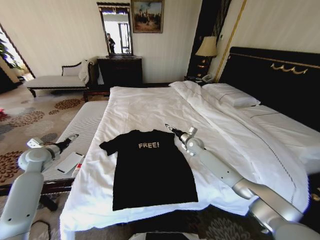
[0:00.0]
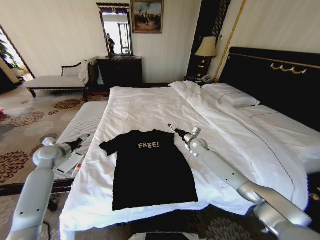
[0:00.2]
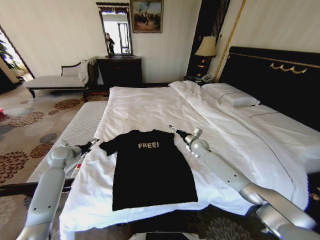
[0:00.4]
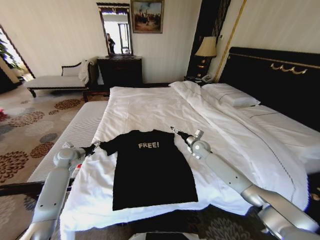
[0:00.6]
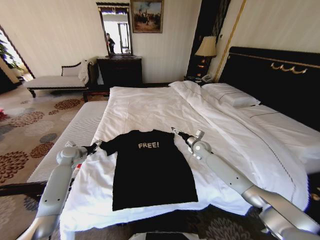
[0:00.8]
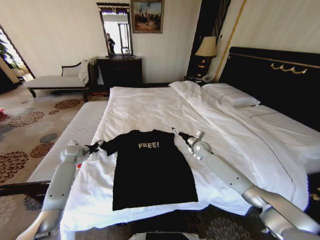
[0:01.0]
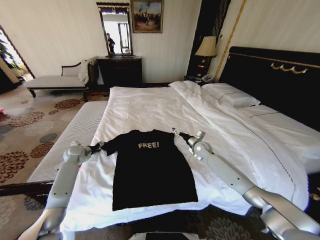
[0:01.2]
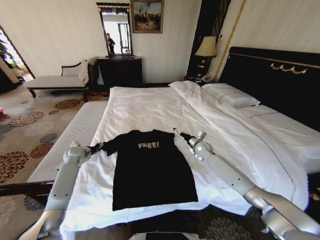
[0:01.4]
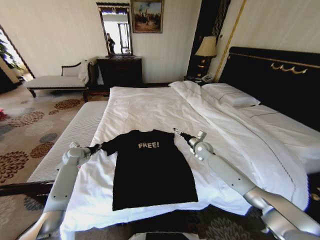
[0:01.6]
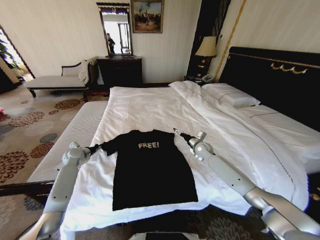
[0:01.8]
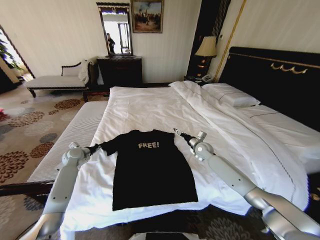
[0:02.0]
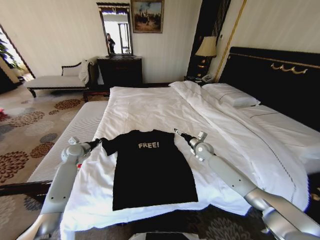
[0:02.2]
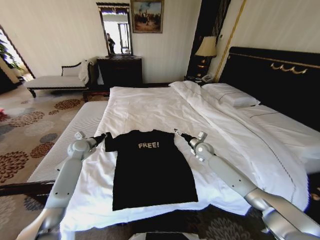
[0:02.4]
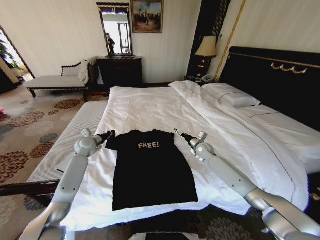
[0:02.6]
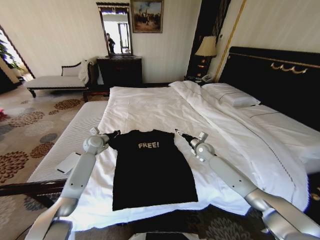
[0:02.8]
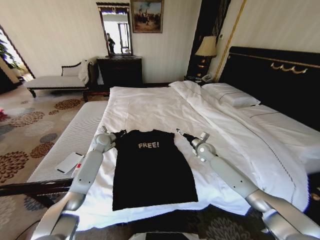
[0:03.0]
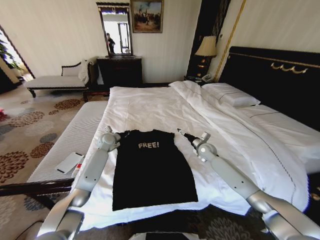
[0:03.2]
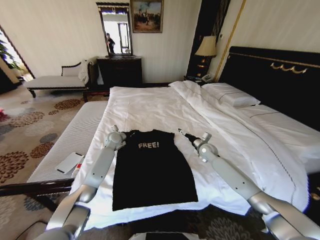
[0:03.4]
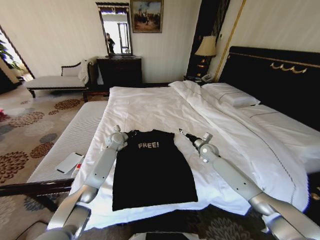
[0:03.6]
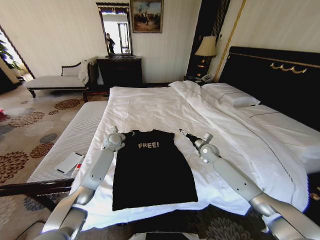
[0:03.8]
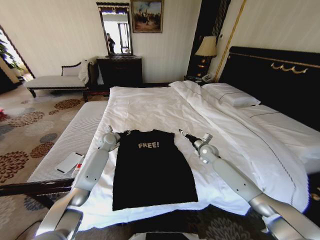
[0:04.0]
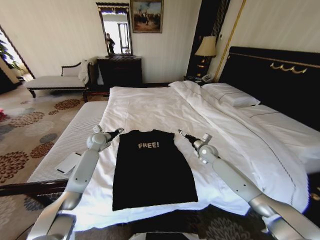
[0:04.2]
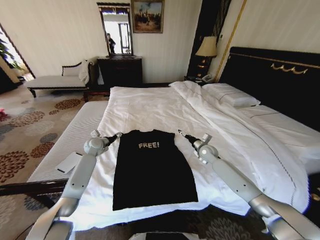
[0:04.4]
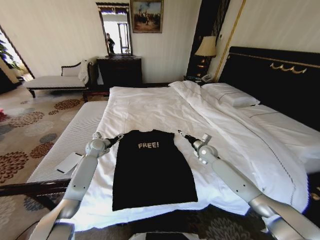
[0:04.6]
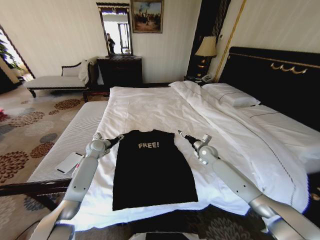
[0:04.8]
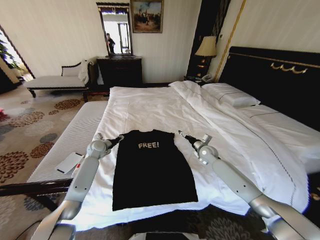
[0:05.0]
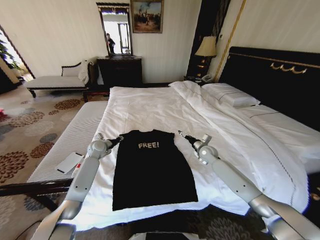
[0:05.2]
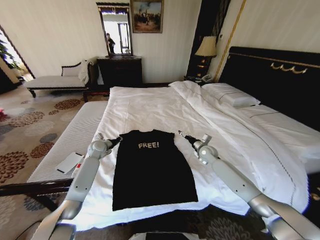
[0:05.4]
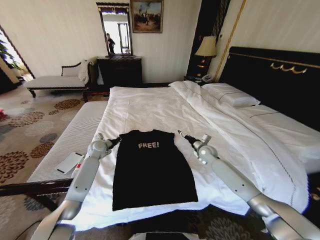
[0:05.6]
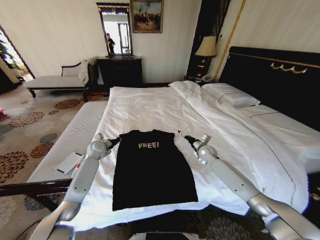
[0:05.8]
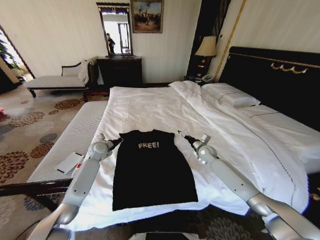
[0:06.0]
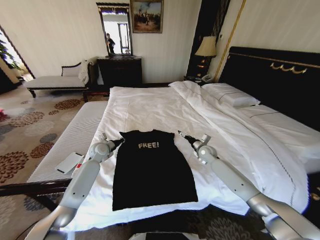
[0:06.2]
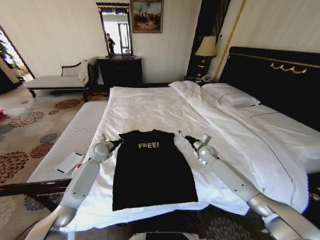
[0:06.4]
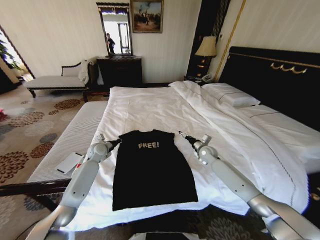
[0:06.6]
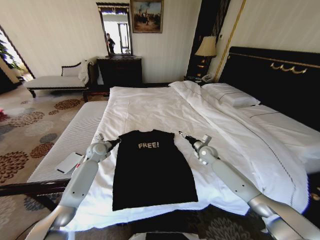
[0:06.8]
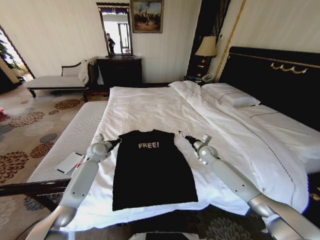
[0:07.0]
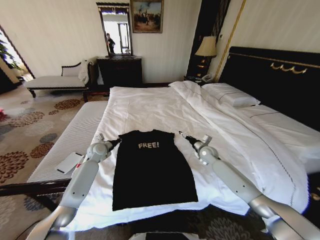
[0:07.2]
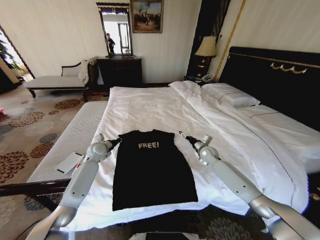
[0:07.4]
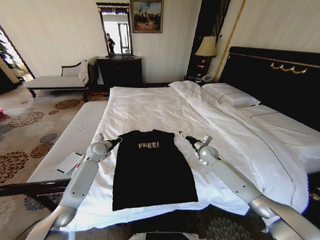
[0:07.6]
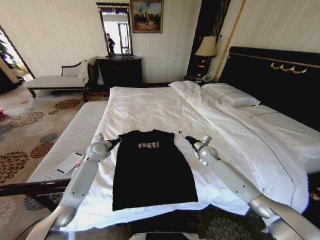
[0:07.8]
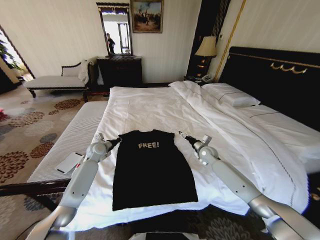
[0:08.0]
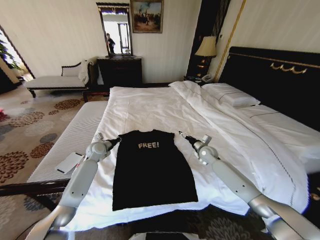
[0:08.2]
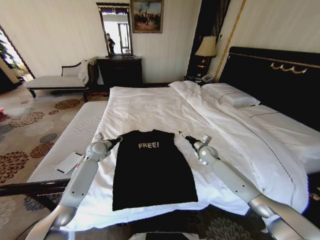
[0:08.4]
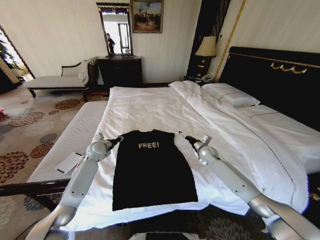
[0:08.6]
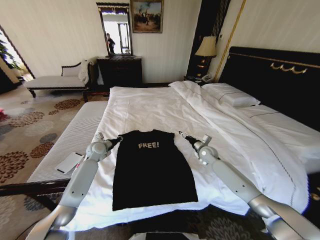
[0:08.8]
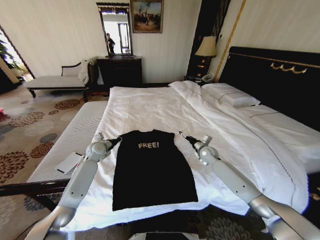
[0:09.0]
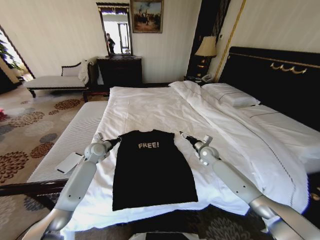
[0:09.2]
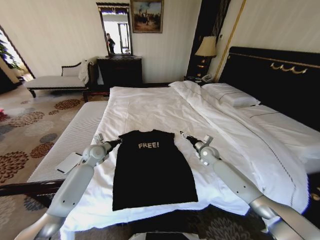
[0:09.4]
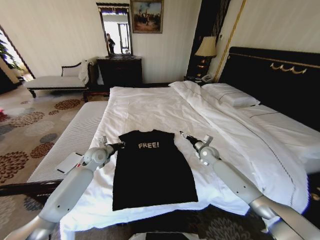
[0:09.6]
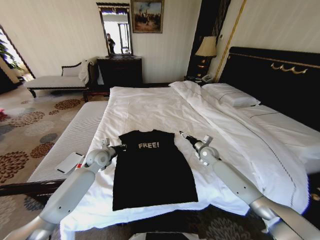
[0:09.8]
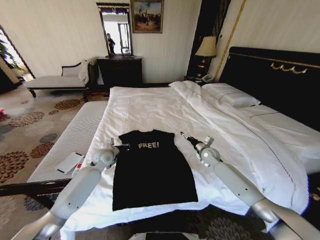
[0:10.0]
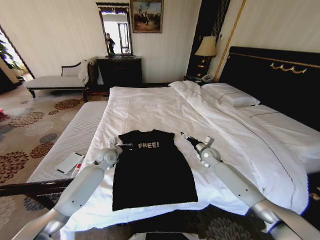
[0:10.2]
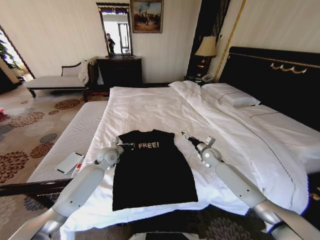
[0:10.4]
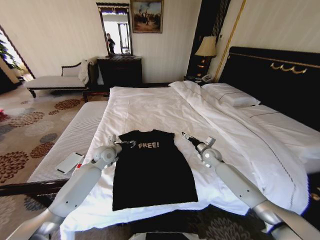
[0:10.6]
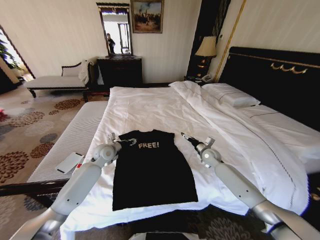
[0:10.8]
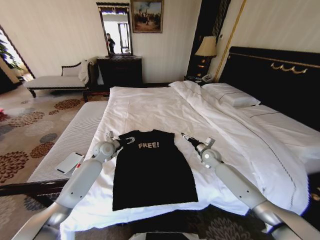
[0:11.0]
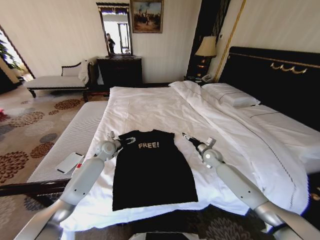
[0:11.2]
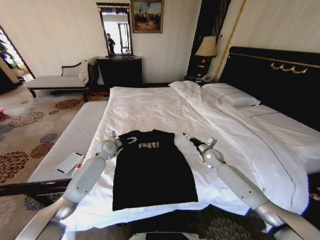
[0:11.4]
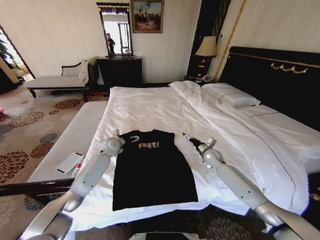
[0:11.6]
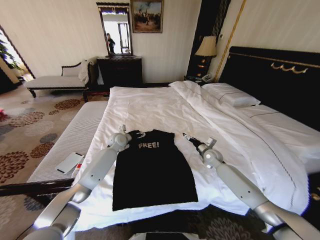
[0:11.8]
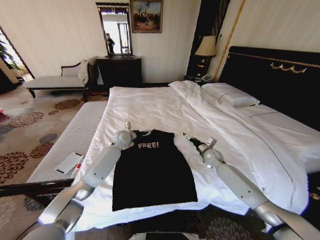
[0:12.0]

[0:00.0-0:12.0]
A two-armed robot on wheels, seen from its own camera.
Task of the whole recording: Fold the clothes on the bed.
0:00.0 to 0:01.6: The right gripper moves about 5 cm. Meanwhile the left gripper heads downward, forward and to the right, covering roughly 15 cm, and closes.
0:01.6 to 0:03.0: The left gripper is displaced to the right and forward by about 15 cm.
0:03.0 to 0:04.4: The left gripper opens up.
0:04.4 to 0:06.0: The left gripper closes.
0:06.0 to 0:09.0: Both grippers stay about where they are.
0:09.0 to 0:10.4: The left gripper goes roughly 5 cm to the right.
0:10.4 to 0:12.0: The left gripper travels forward and to the right by some 10 cm, and opens up.

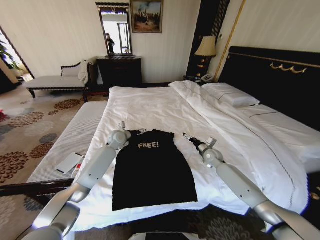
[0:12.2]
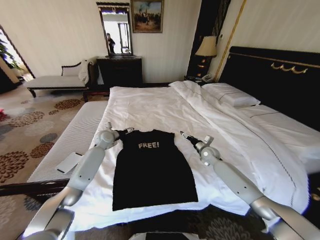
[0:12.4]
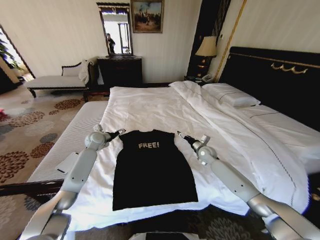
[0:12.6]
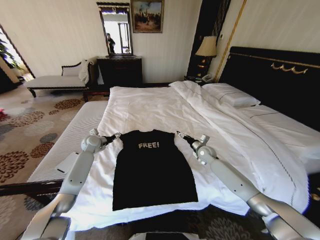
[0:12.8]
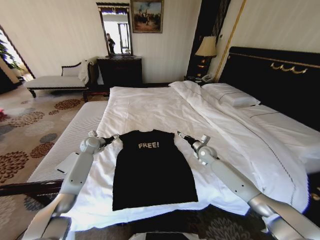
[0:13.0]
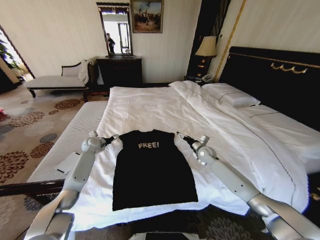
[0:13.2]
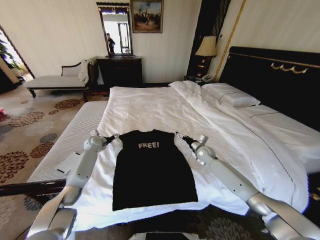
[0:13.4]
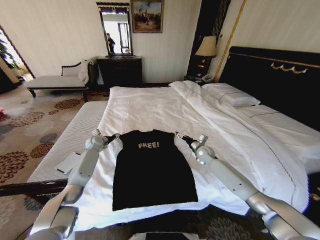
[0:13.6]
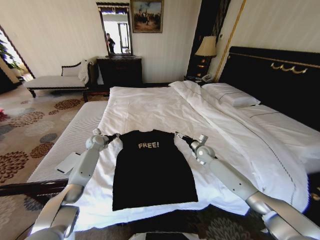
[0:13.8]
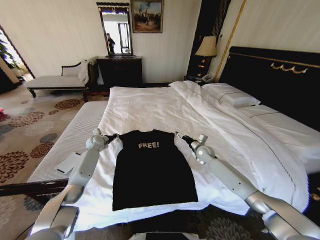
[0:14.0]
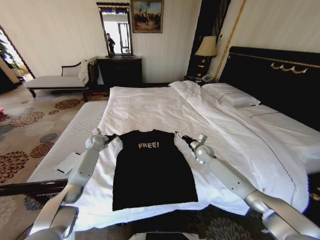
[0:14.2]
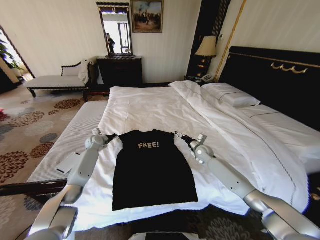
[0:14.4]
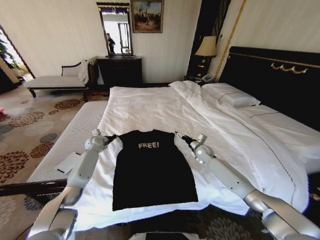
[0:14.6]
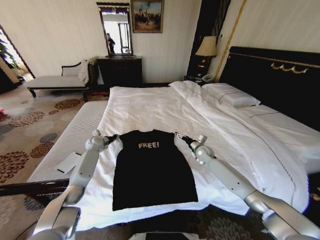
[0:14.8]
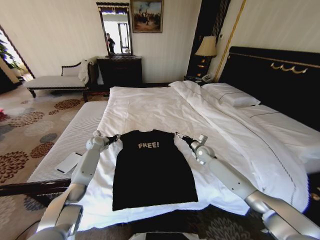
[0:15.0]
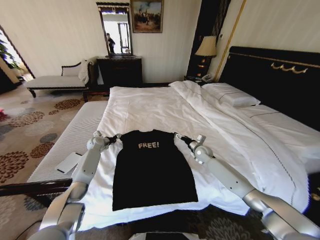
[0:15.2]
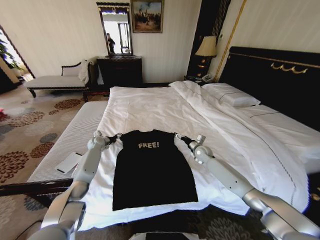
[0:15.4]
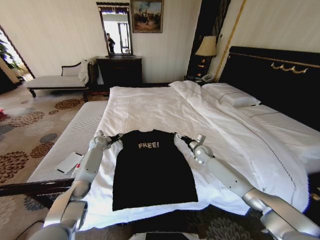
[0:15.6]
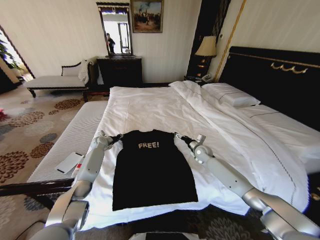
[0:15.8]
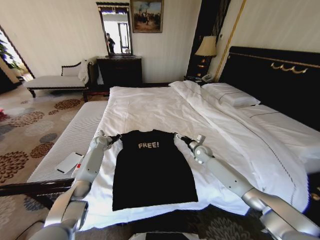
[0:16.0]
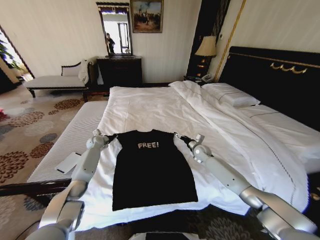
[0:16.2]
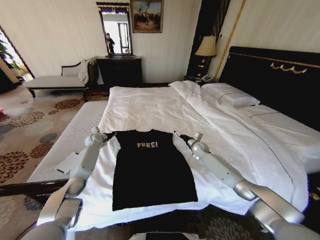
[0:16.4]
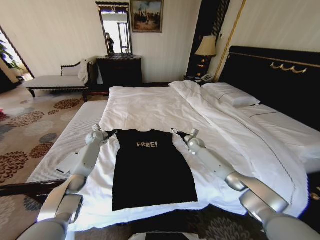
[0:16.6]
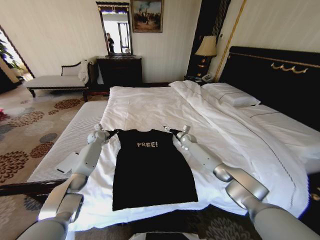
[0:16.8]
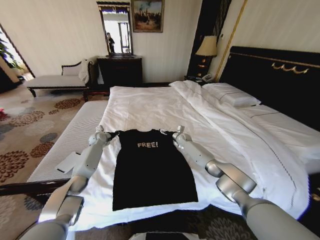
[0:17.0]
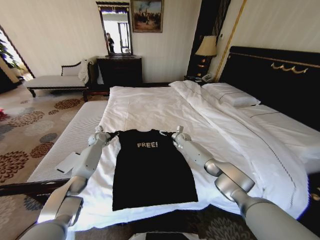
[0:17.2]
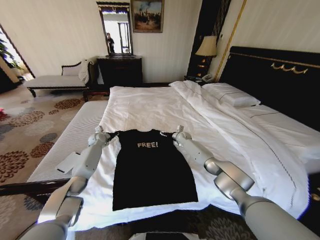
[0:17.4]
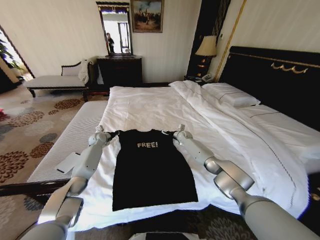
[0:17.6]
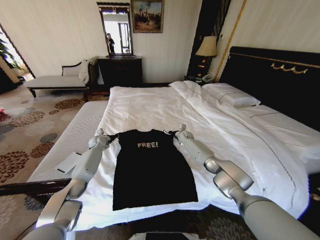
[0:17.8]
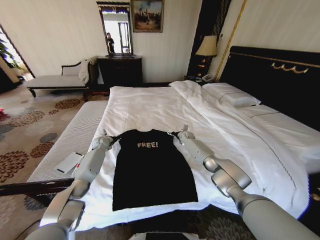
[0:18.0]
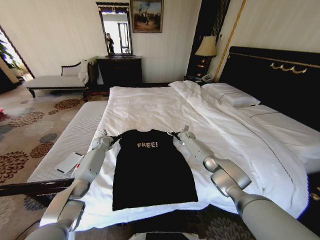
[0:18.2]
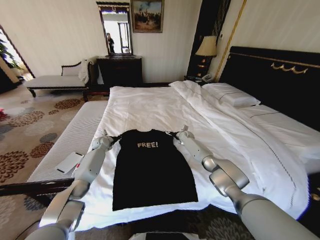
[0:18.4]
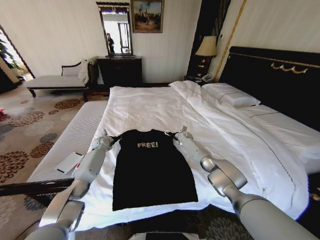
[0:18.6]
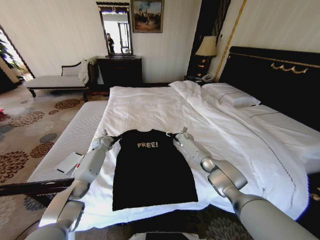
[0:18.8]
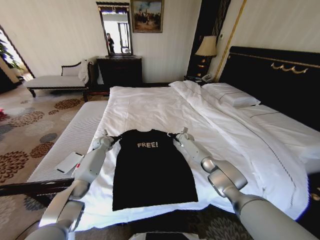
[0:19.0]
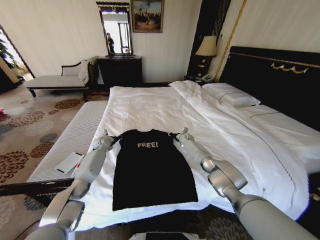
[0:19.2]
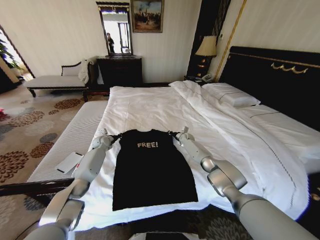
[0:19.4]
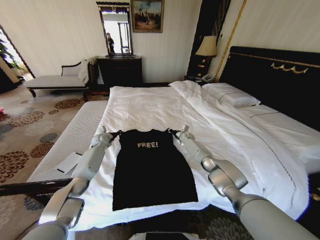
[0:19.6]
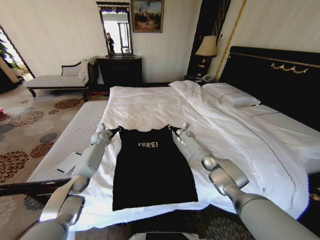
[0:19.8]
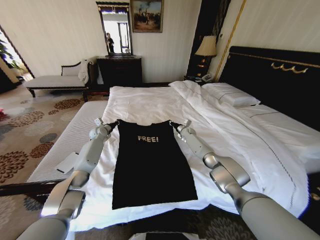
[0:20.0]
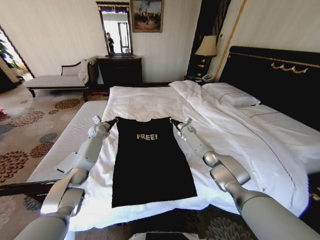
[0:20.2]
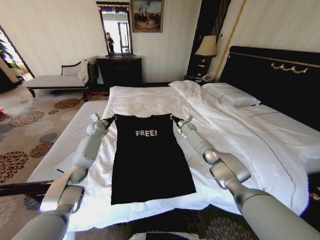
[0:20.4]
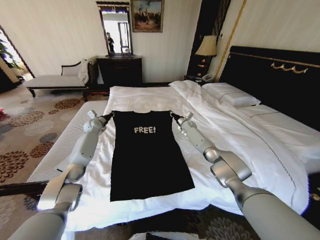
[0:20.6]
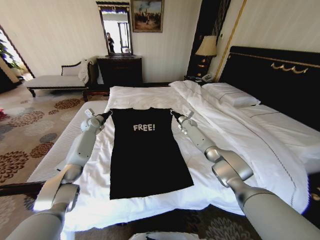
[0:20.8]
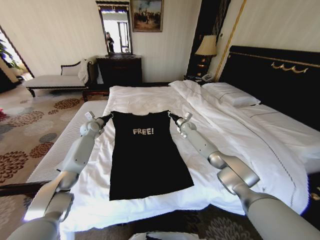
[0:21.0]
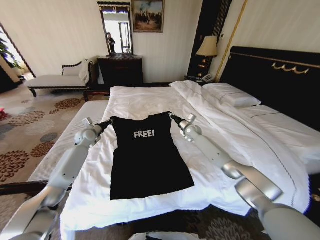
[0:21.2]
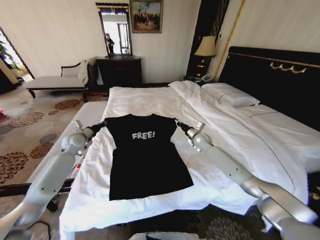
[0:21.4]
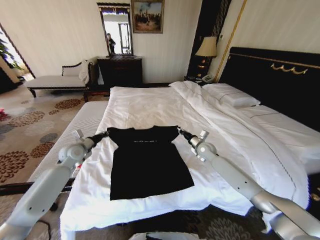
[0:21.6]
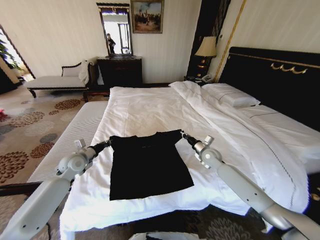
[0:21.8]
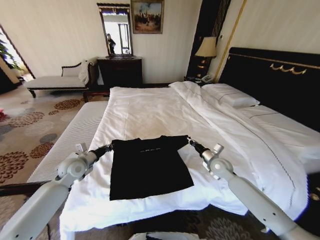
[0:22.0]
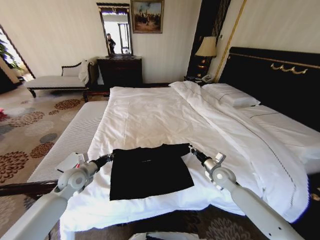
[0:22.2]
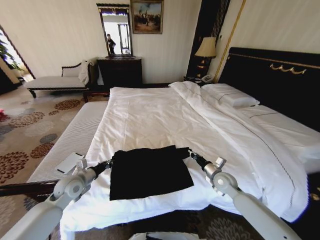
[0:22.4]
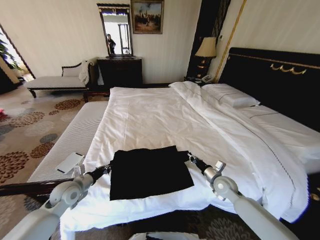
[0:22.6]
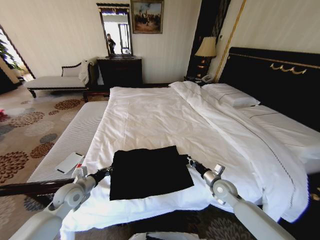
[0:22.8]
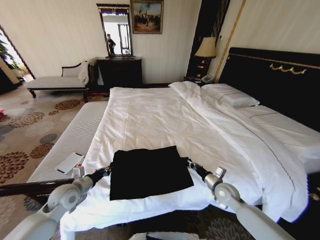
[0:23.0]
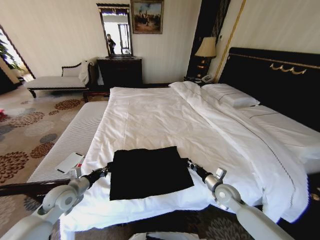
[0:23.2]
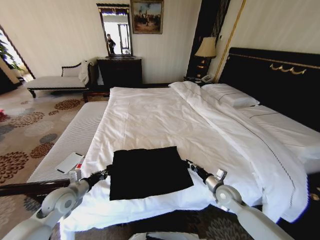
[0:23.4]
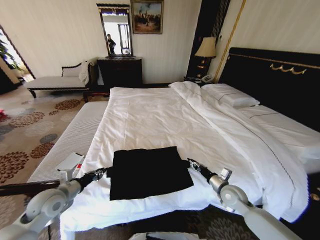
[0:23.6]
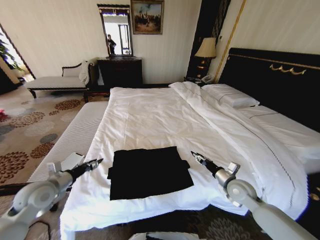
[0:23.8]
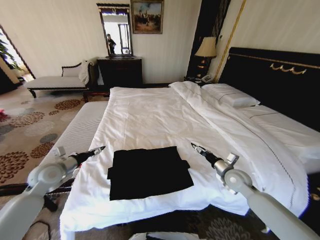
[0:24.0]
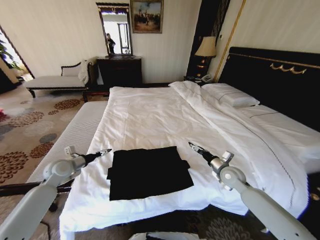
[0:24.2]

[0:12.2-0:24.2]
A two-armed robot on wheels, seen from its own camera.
Task of the whole recording: Fold the clothes on the bed.
0:12.2 to 0:13.8: The left gripper shifts roughly 15 cm to the left and downward, and closes.
0:13.8 to 0:15.2: The left gripper closes, then opens again.
0:15.2 to 0:16.6: The left gripper closes up, while the right gripper goes about 5 cm forward.
0:16.6 to 0:18.2: The right gripper goes roughly 10 cm forward.
0:18.2 to 0:19.8: The right gripper closes its fingers.
0:19.8 to 0:21.2: The right gripper heads upward, covering approximately 10 cm, while the left gripper travels upward and backward by about 10 cm.
0:21.2 to 0:22.6: The two grippers go approximately 25 cm backward.
0:22.6 to 0:24.2: The left gripper travels forward and to the left by some 10 cm, and opens its fingers. The right gripper changes place by about 5 cm, and opens.
